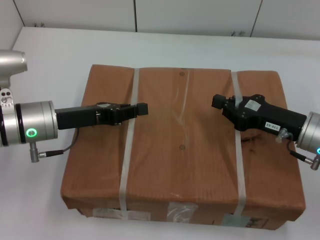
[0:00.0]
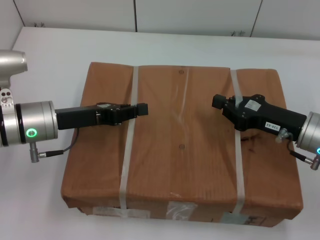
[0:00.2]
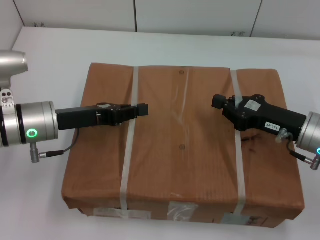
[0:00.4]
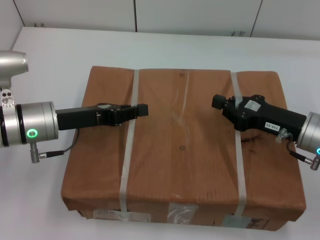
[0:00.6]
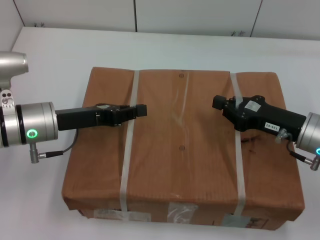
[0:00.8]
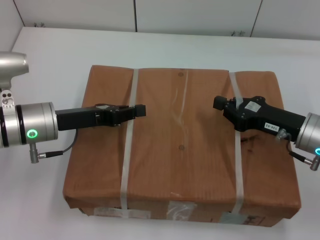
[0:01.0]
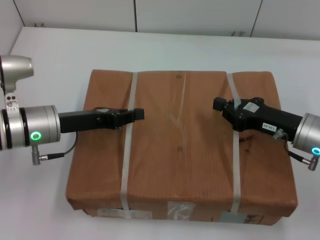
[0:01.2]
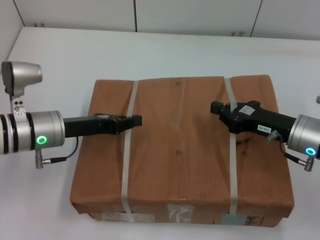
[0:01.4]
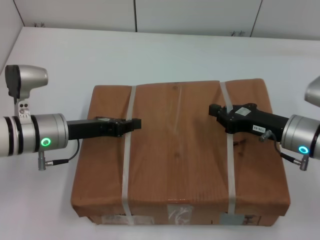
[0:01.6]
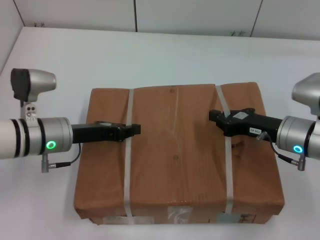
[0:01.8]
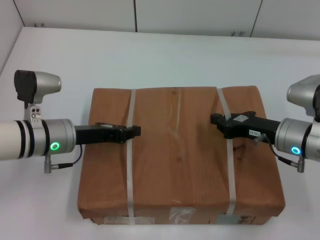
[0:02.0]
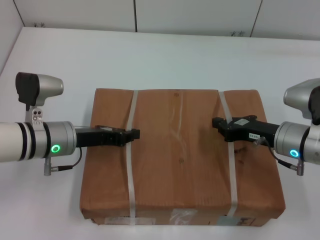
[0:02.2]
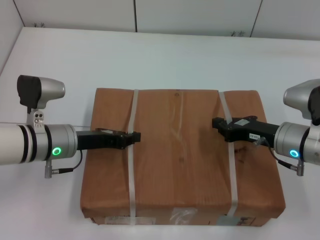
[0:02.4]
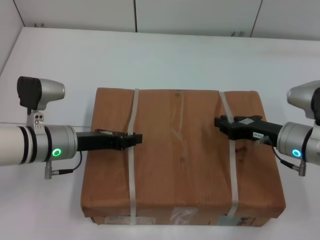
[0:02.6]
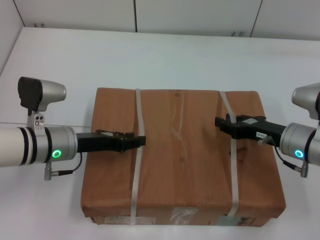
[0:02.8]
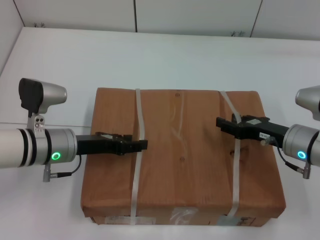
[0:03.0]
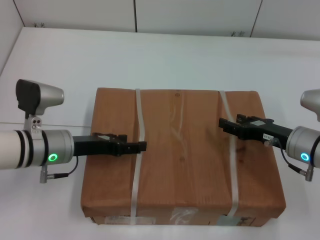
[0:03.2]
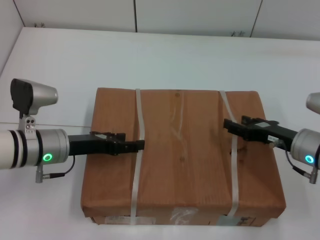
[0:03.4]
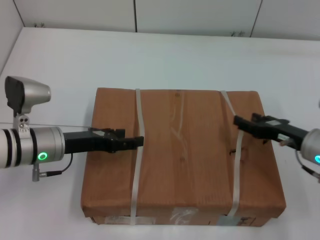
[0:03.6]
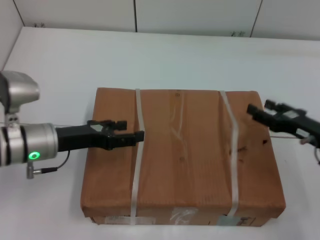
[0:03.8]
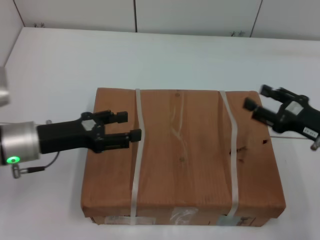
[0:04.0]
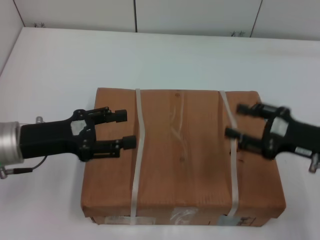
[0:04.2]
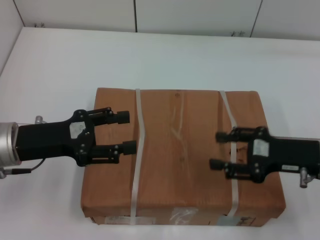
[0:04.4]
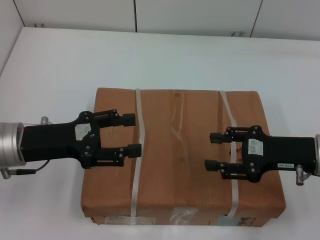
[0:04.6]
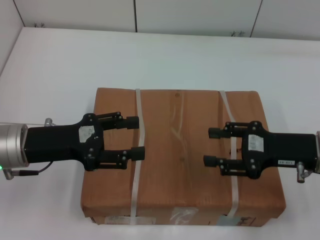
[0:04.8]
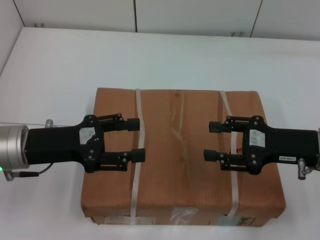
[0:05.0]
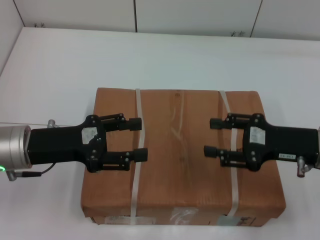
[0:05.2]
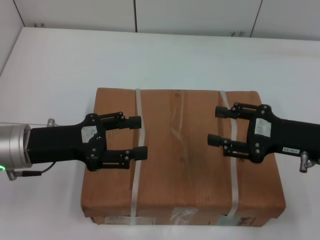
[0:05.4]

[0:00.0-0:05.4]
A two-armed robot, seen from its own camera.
Task of the whole recording: place the box on the table with both arms.
Step, 0:00.0 to 0:02.2: Place the box on the table with left gripper.
Step, 0:00.0 to 0:02.2: Place the box on the table with right gripper.
Step, 0:02.4 to 0:03.2: Loosen the box on the table with left gripper.
Step, 0:02.4 to 0:03.2: Loosen the box on the table with right gripper.
0:02.8 to 0:04.0: The right gripper is displaced to the right by about 5 cm, and opens its fingers. The left gripper moves roughly 5 cm, and opens.
